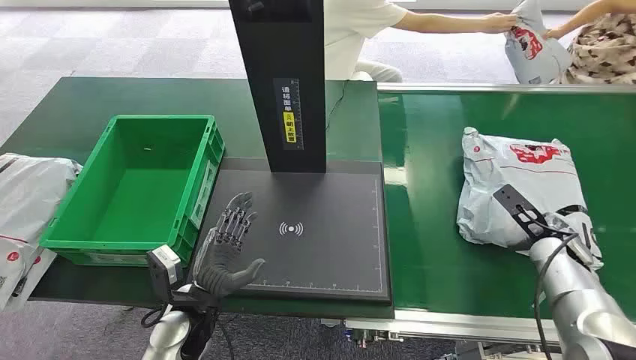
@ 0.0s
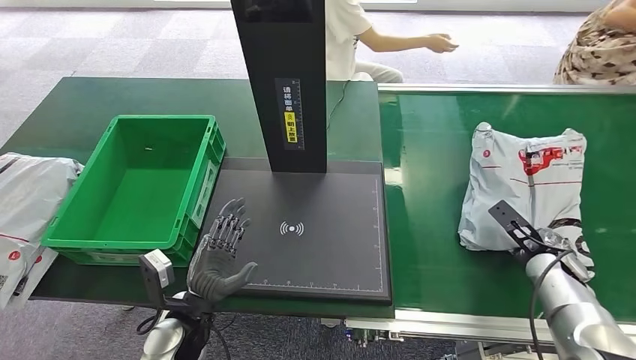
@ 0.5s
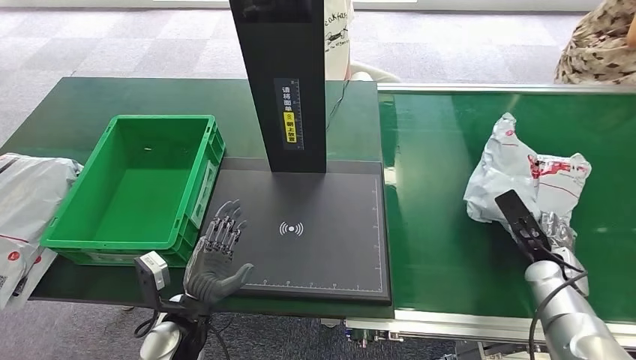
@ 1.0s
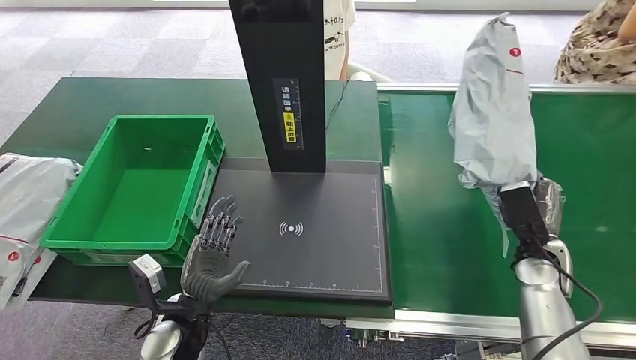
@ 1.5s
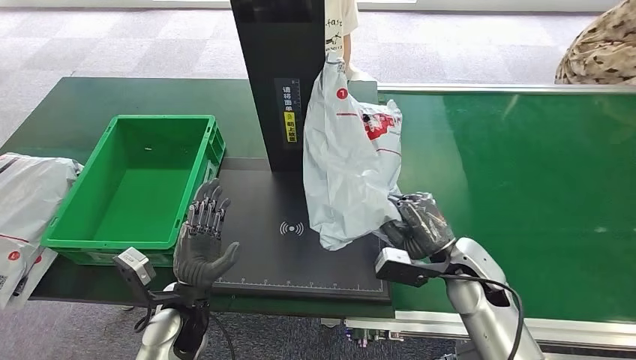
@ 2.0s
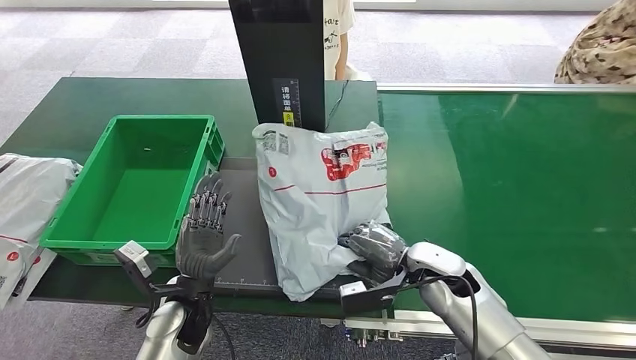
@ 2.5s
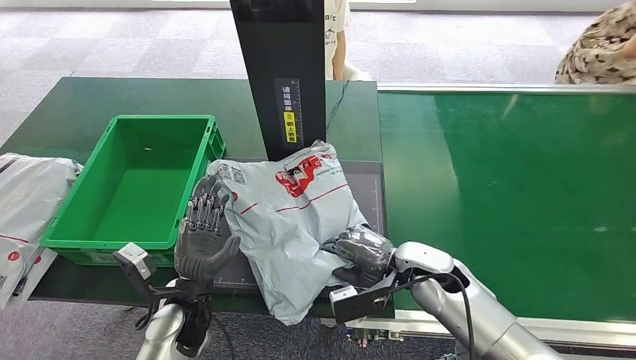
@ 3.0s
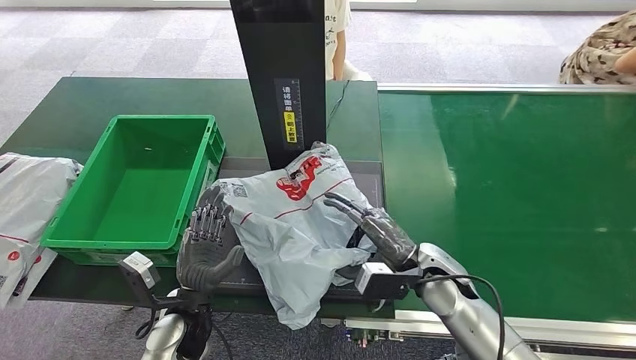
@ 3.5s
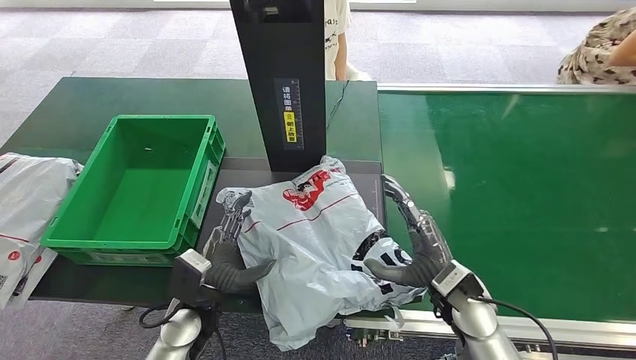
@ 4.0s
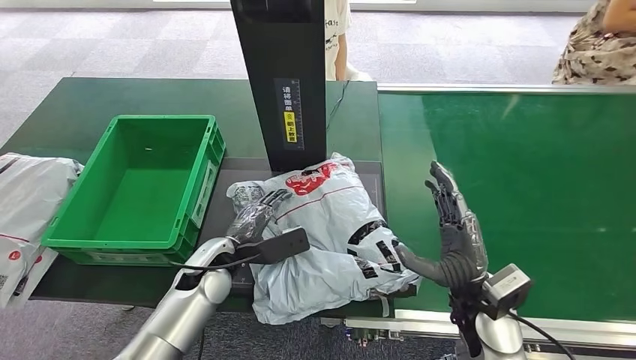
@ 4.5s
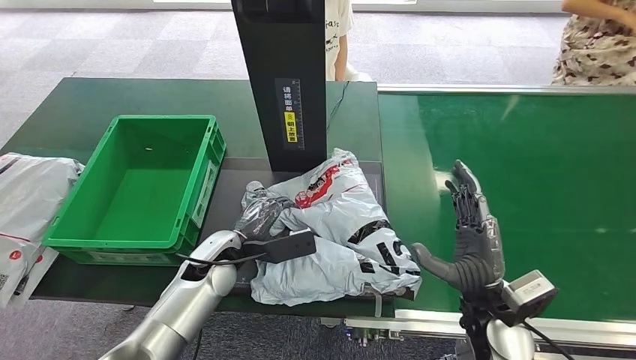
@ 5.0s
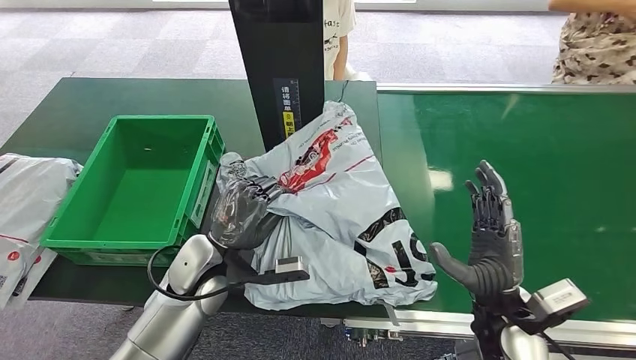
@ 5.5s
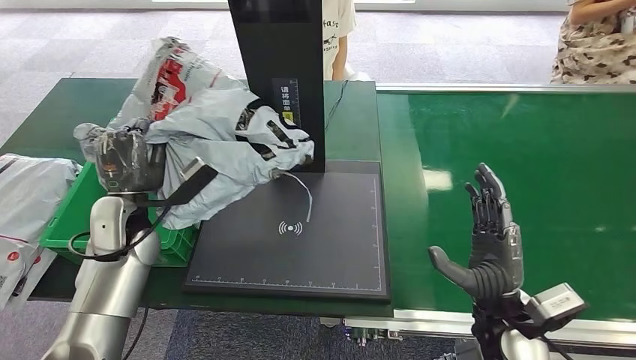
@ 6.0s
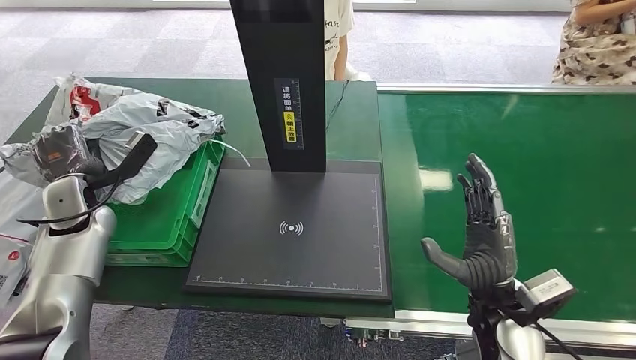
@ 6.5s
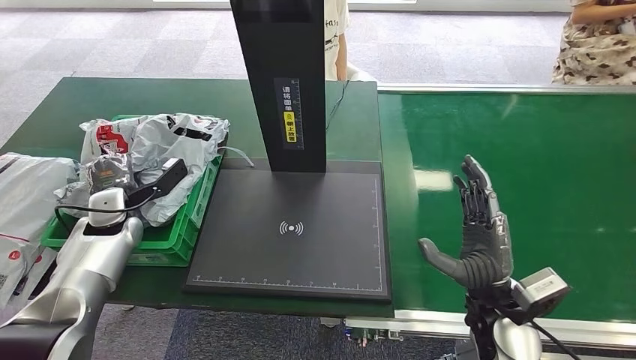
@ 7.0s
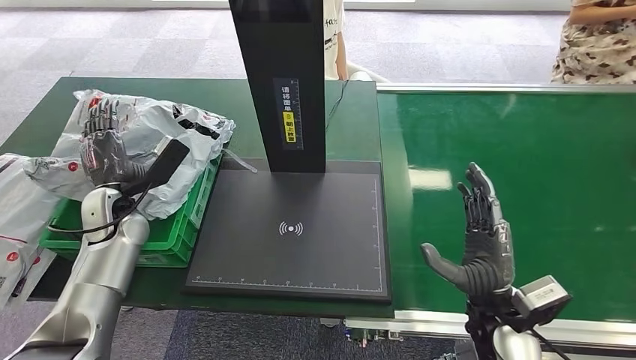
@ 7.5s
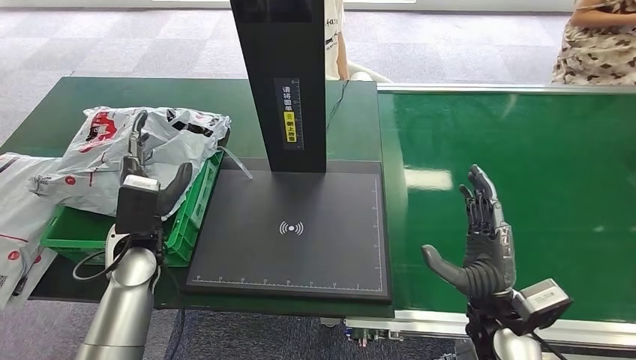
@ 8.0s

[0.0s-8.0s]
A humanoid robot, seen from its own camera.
Task of the whole recording: Weigh the package on the weighing device and place it in the left basket.
Step, 0.0s to 2.0s: Pick up the package from the conveyor belt.
Step, 2.5s to 4.0s: Place the package onto the inbound machine.
Step, 6.5s to 8.0s: Place the package into the parcel locker.
